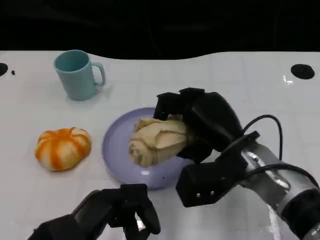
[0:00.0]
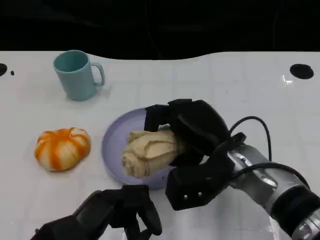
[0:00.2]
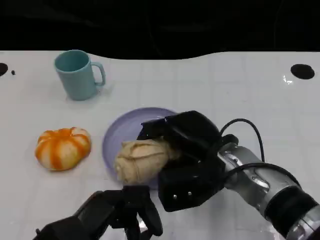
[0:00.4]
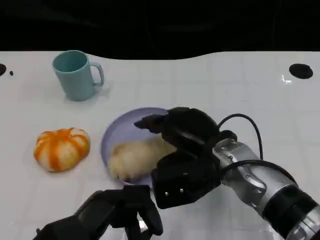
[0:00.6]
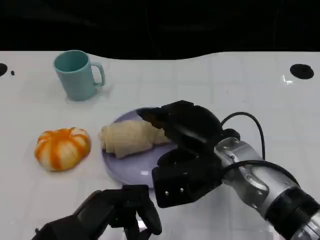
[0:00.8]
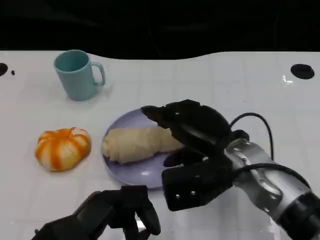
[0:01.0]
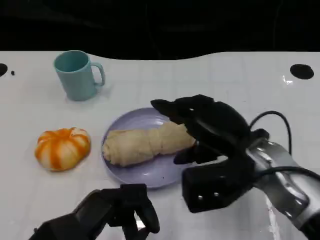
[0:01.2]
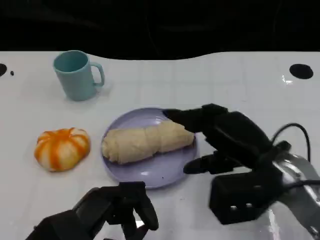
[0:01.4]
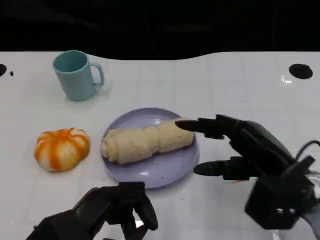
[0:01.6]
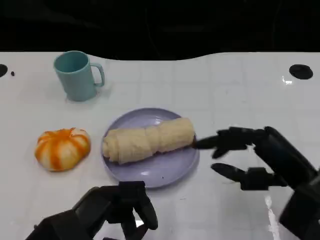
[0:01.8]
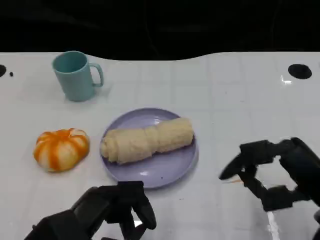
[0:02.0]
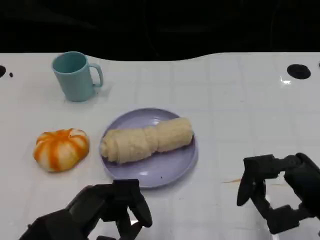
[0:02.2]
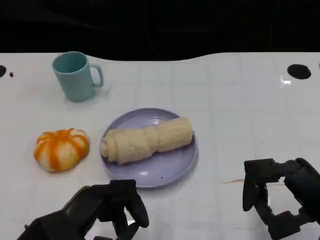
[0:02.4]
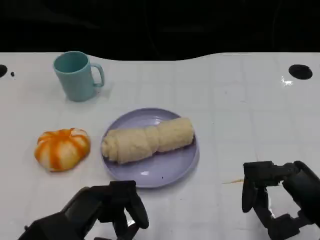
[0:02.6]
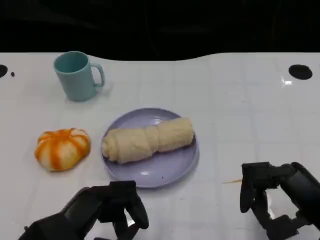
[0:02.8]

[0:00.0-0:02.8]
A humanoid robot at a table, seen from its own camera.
Task of the whole recording: Grasp the towel on the left side of the plate with the left hand and place it into the plate.
0:00.0 to 0:01.4: The right hand is displaced to the right by approximately 5 cm.
0:01.4 to 0:02.8: The right hand goes roughly 10 cm backward and to the right.

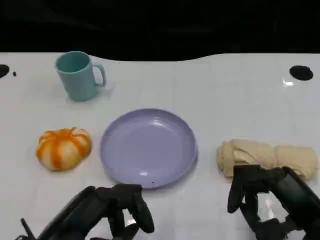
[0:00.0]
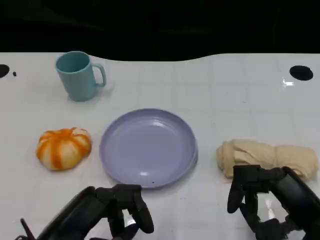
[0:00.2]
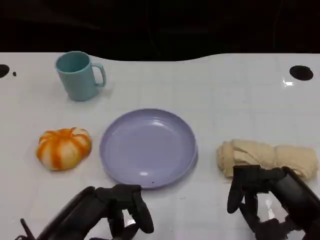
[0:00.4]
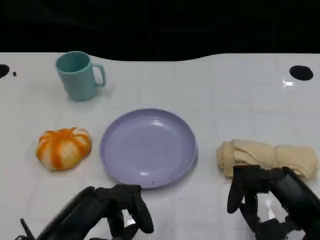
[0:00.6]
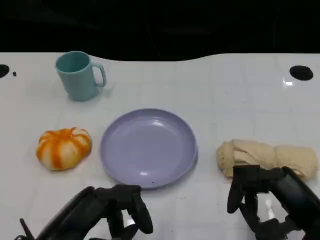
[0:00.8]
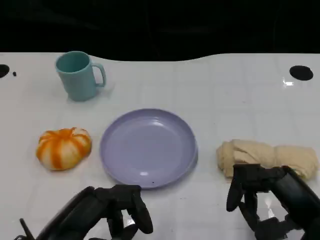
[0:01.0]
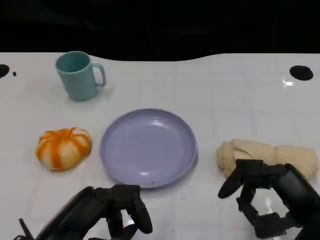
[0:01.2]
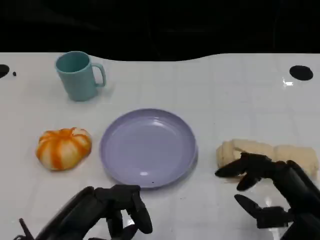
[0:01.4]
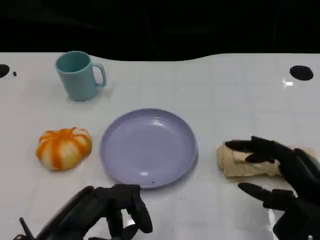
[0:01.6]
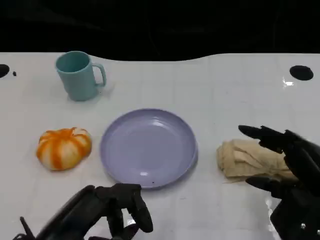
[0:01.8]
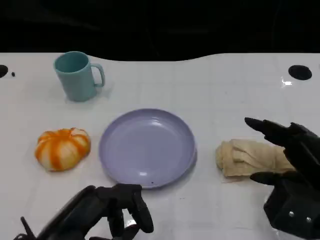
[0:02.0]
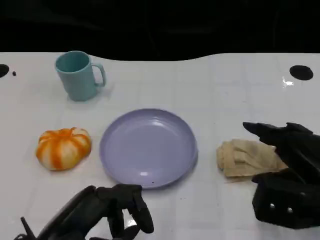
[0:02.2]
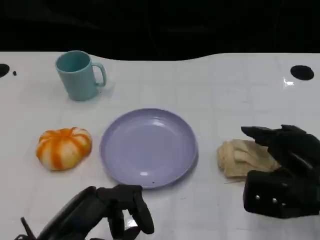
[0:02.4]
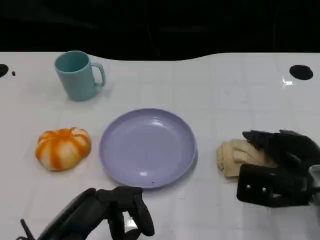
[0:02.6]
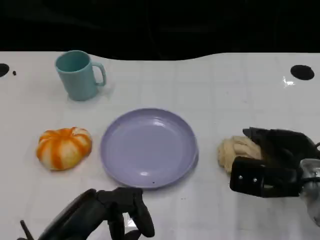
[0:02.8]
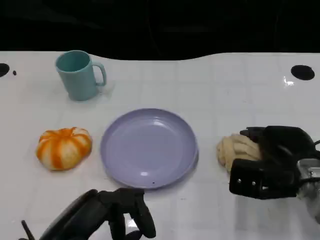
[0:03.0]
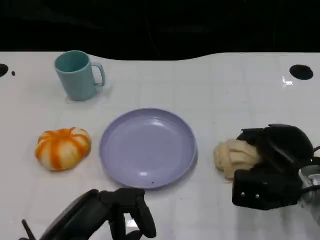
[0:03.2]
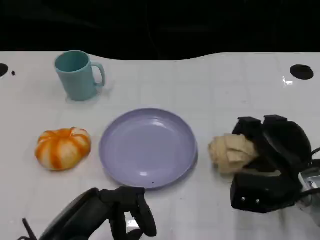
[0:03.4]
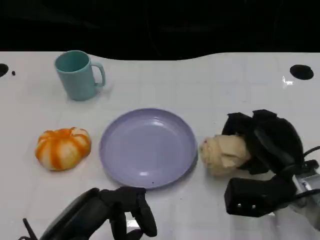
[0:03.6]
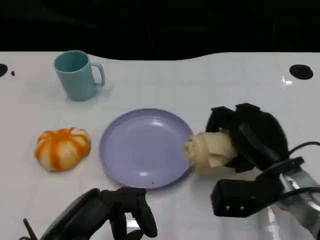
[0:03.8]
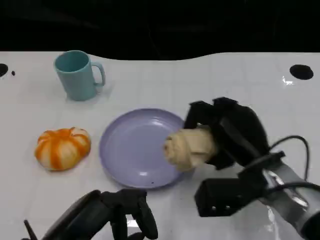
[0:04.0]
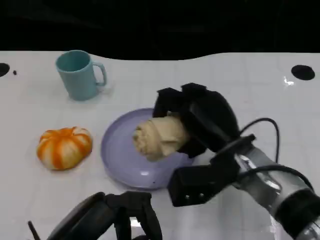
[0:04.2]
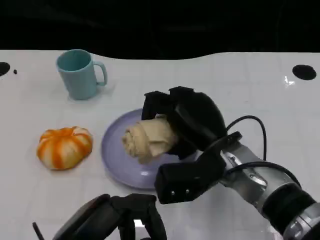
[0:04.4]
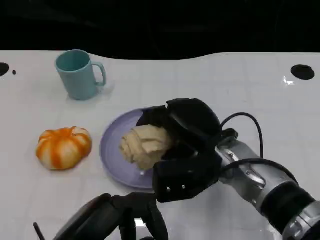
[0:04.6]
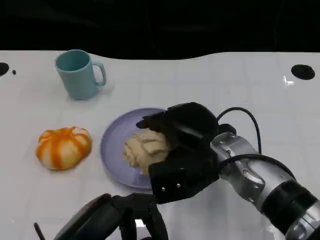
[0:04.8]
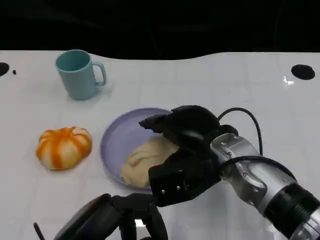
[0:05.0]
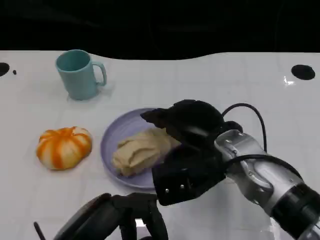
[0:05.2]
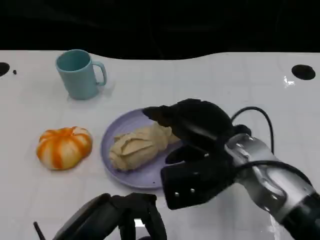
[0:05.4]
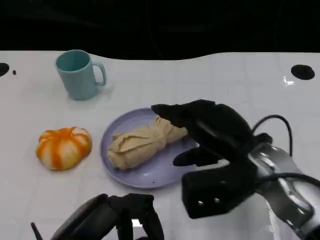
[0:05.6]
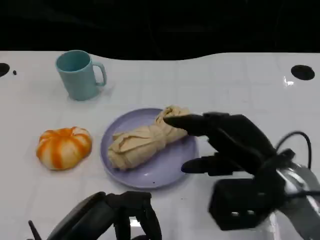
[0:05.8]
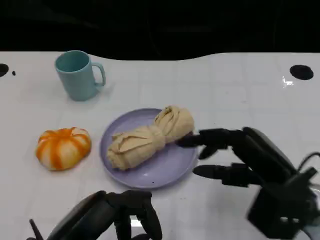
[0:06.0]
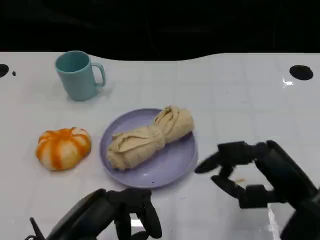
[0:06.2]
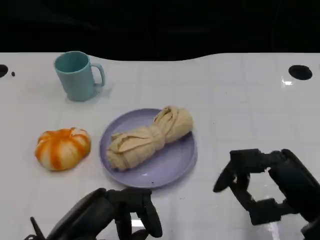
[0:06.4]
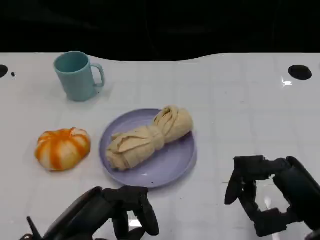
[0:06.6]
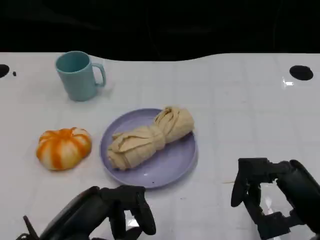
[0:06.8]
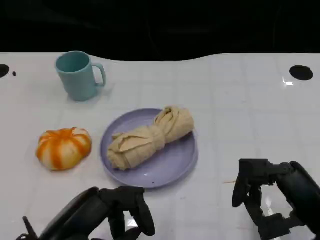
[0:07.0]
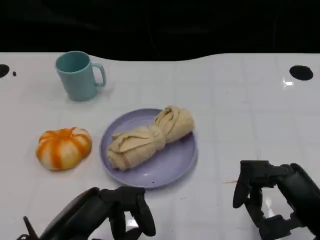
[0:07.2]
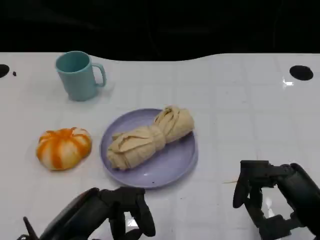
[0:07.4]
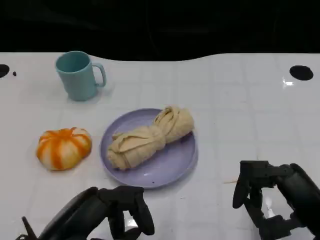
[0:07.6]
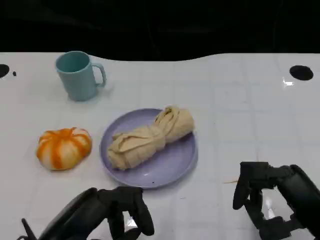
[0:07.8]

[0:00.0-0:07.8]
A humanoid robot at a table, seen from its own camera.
Task of the whole recording: Grasp the towel on the left side of the plate with the left hand and place it into the plate.
0:00.0 to 0:01.6: The hands move only a little.
0:01.6 to 0:03.2: The right hand shifts about 10 cm forward and downward.
0:03.2 to 0:04.6: The right hand goes roughly 15 cm to the left and upward.
0:04.6 to 0:06.2: The right hand travels to the right and backward by roughly 15 cm.
0:06.2 to 0:07.8: The hands stay close to where they were, moving slightly.

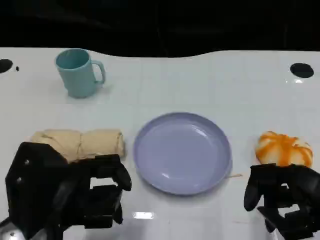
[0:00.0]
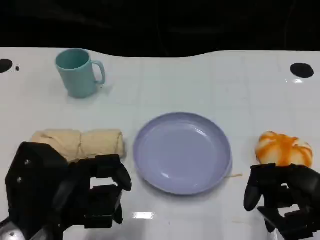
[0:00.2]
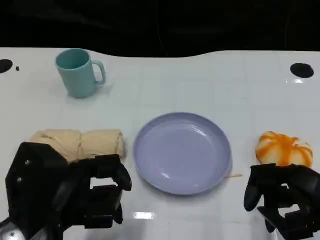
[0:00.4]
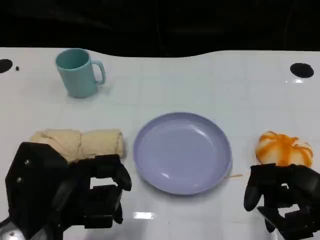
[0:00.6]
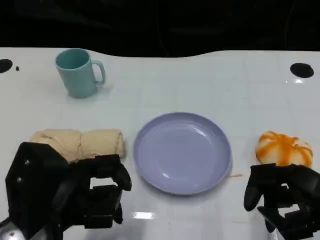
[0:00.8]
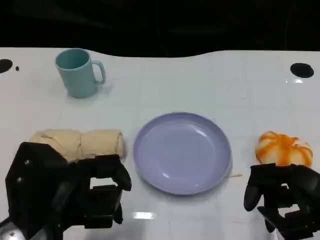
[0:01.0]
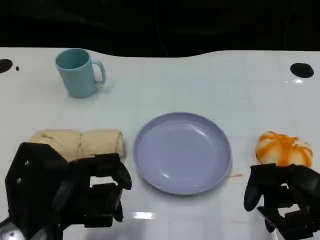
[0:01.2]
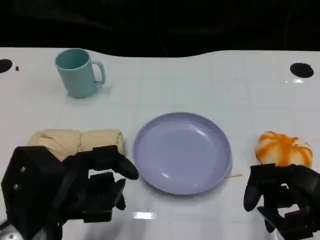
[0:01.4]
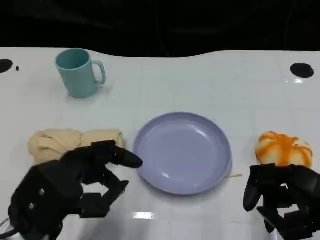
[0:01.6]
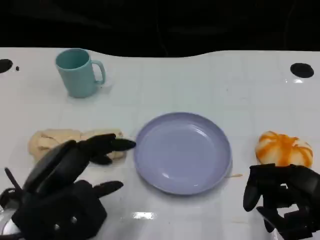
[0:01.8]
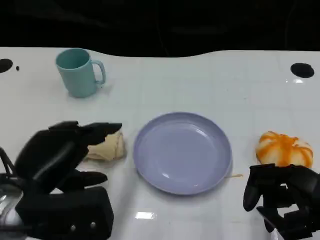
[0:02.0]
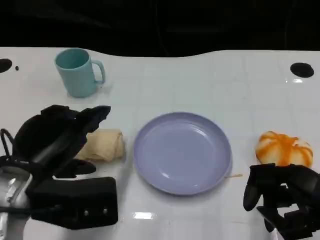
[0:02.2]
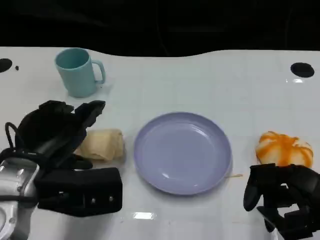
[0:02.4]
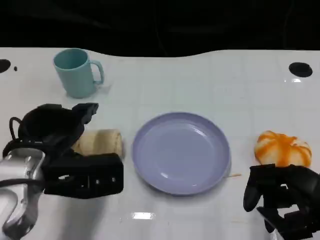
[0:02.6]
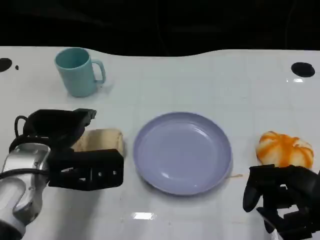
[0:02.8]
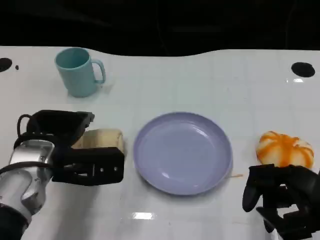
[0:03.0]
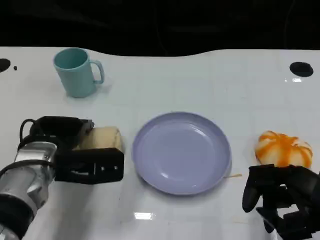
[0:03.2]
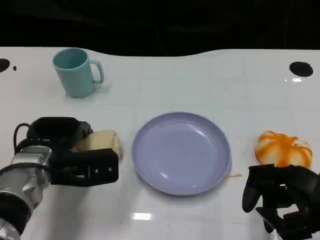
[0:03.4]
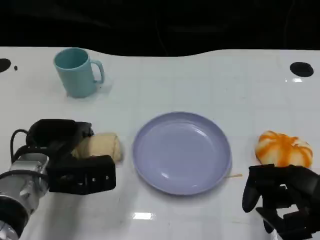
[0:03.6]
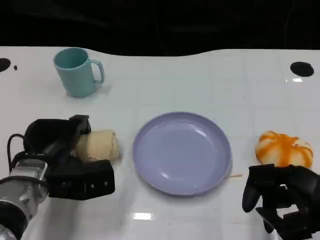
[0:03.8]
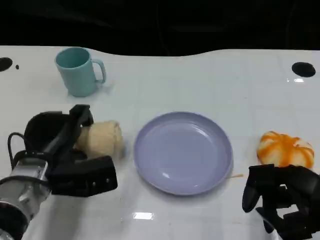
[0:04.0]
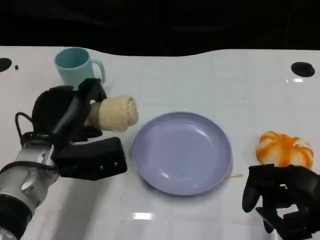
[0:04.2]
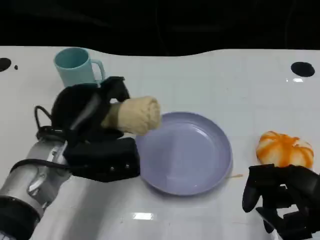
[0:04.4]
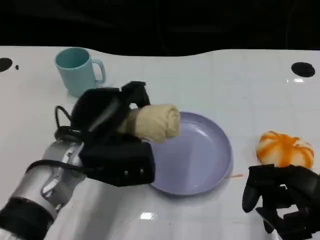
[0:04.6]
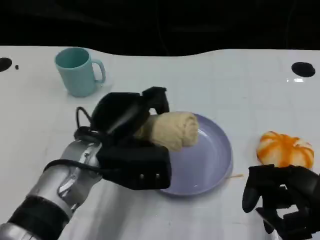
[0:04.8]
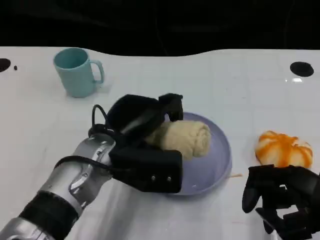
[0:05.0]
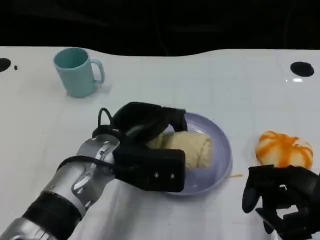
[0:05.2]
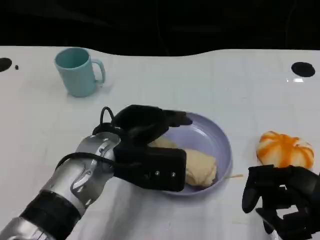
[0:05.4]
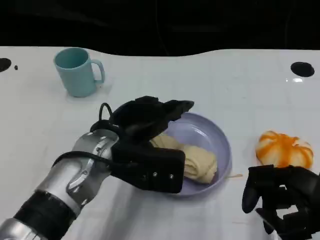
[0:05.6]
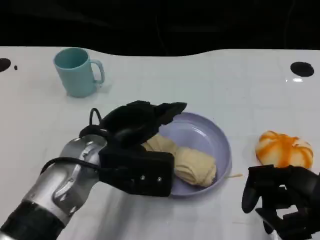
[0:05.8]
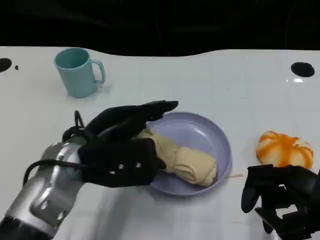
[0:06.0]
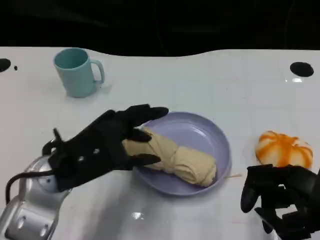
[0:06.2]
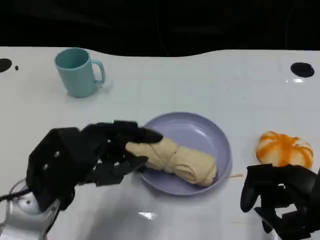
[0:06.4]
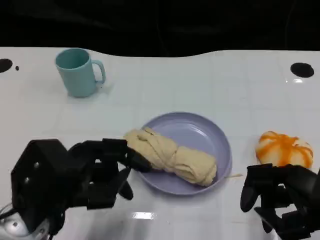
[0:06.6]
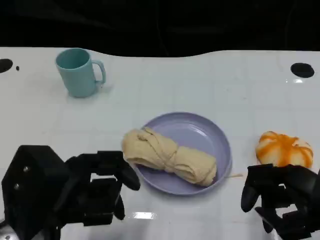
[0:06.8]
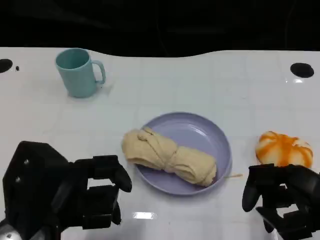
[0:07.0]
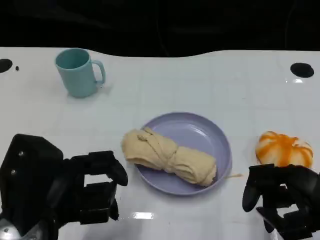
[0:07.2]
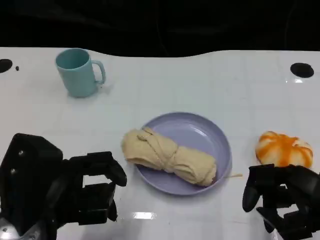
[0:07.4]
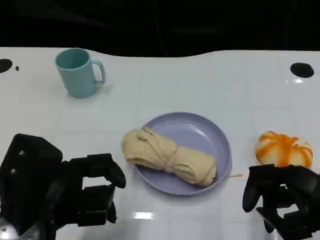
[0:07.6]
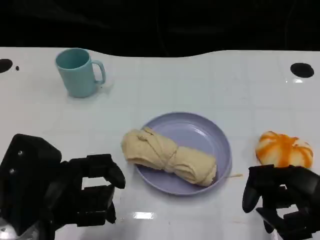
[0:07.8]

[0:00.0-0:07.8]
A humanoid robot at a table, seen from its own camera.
Task of the whole recording: Grasp the towel on the left side of the plate with the left hand and place it into the plate.
0:01.6 to 0:03.2: The left hand heads forward, covering some 10 cm.
0:03.2 to 0:04.6: The left hand shifts some 5 cm to the right.
0:04.6 to 0:06.2: The left hand moves about 5 cm.
0:06.2 to 0:07.8: The left hand goes about 5 cm backward.
